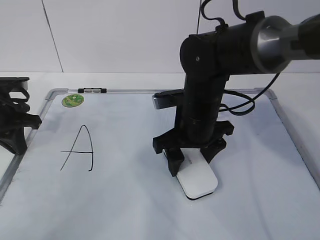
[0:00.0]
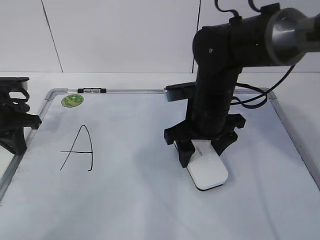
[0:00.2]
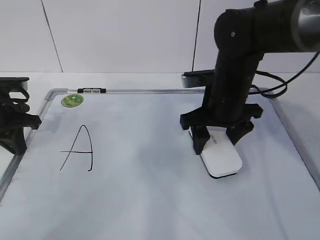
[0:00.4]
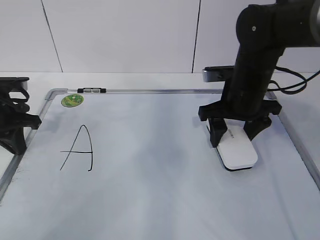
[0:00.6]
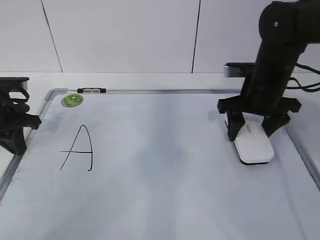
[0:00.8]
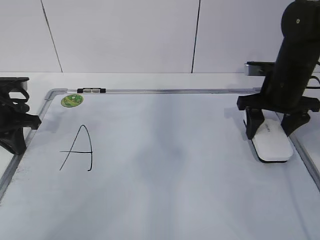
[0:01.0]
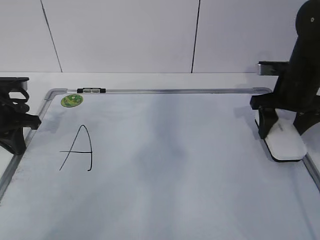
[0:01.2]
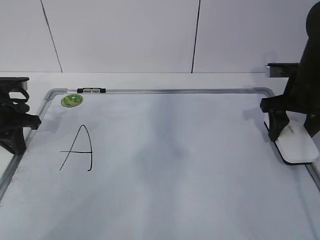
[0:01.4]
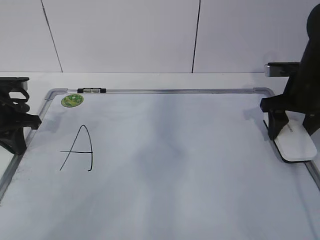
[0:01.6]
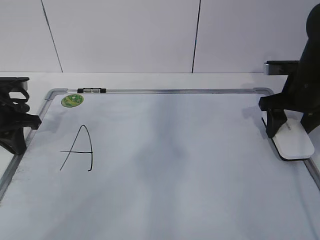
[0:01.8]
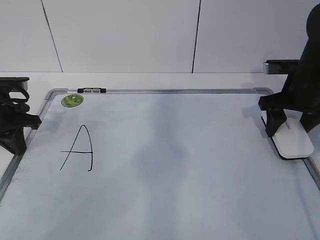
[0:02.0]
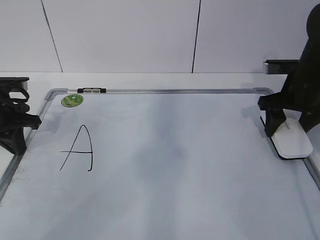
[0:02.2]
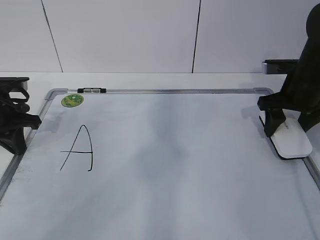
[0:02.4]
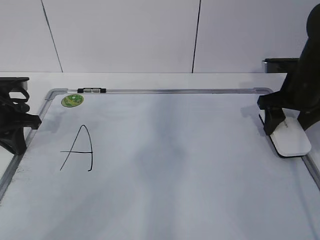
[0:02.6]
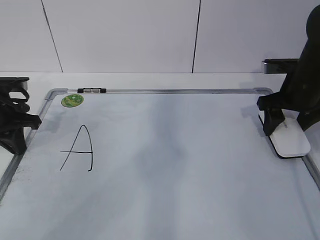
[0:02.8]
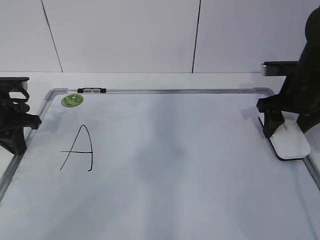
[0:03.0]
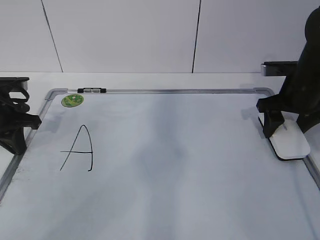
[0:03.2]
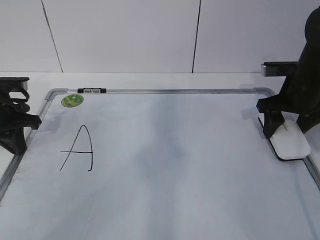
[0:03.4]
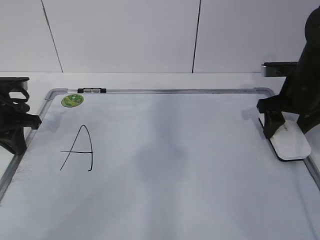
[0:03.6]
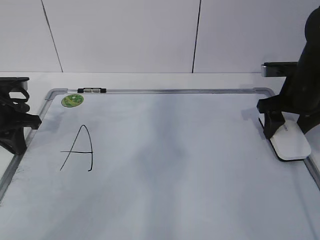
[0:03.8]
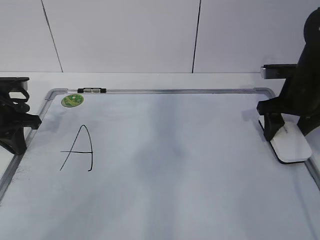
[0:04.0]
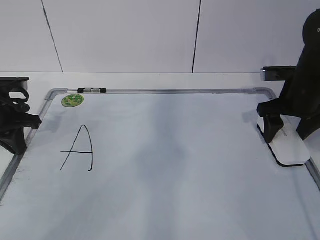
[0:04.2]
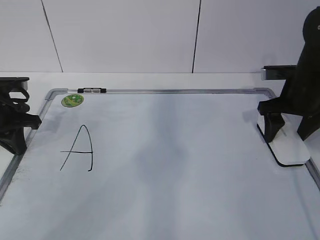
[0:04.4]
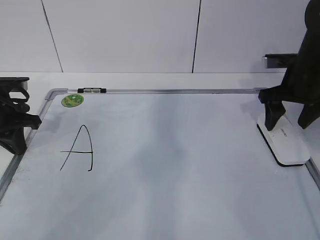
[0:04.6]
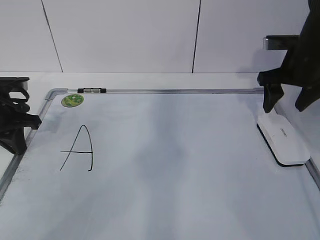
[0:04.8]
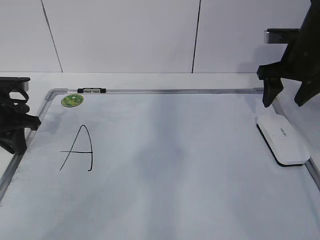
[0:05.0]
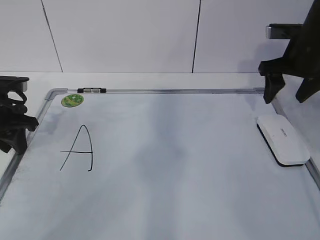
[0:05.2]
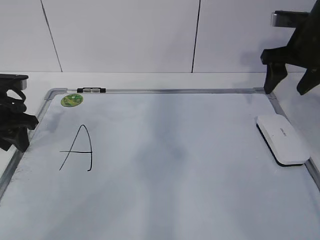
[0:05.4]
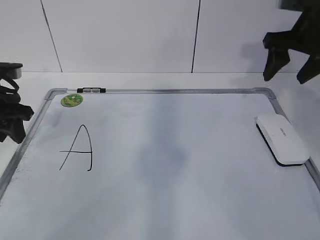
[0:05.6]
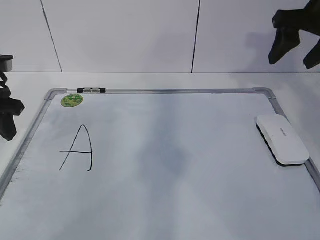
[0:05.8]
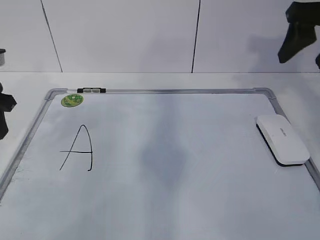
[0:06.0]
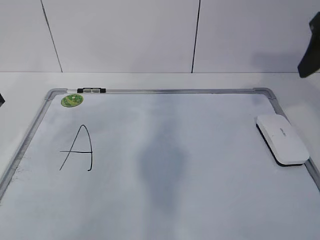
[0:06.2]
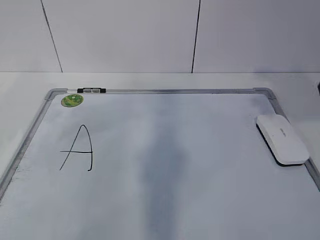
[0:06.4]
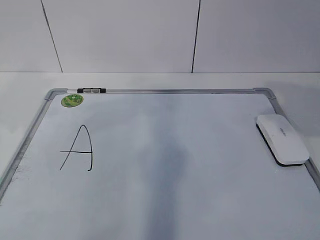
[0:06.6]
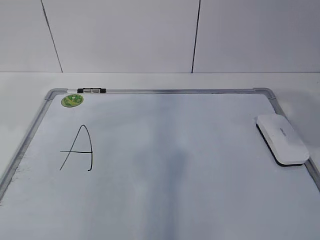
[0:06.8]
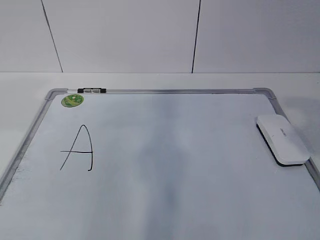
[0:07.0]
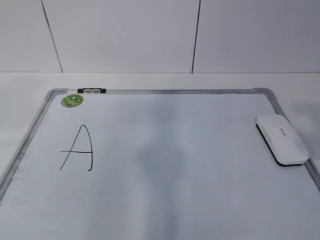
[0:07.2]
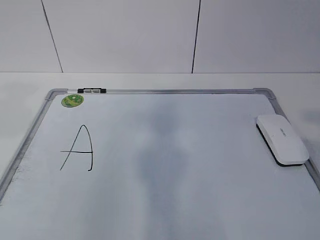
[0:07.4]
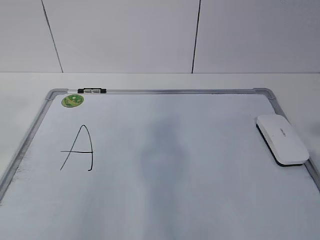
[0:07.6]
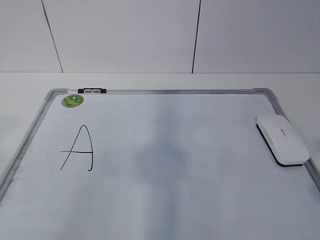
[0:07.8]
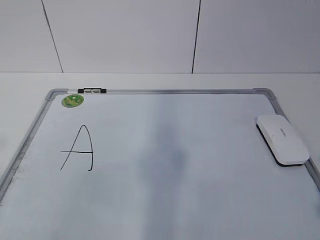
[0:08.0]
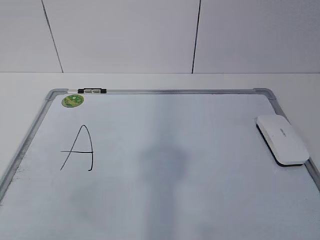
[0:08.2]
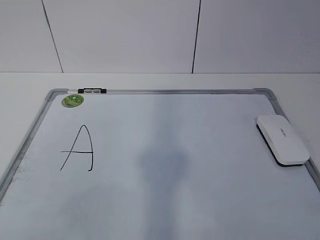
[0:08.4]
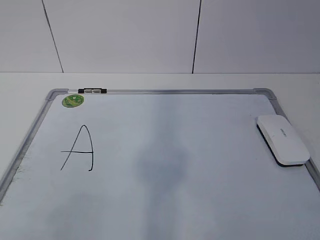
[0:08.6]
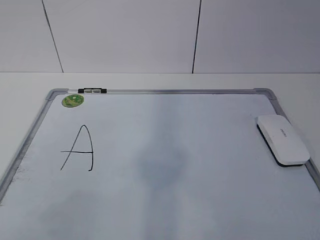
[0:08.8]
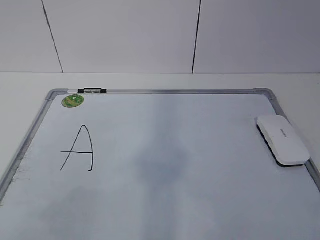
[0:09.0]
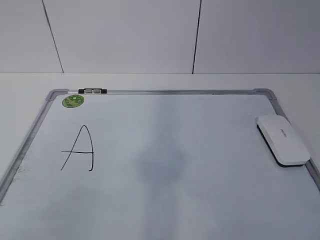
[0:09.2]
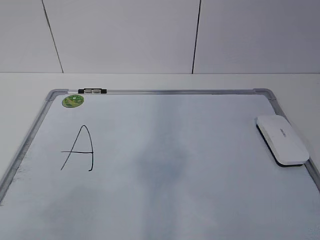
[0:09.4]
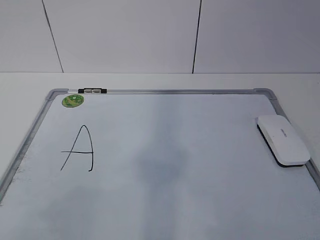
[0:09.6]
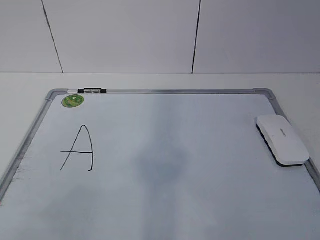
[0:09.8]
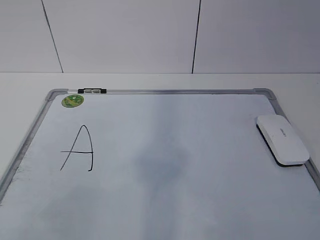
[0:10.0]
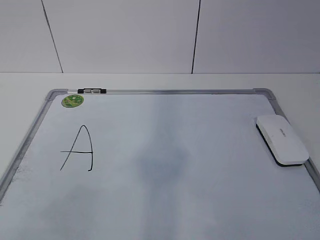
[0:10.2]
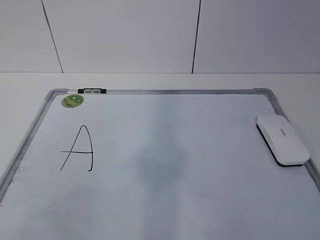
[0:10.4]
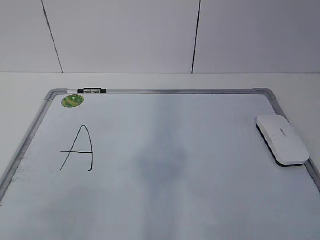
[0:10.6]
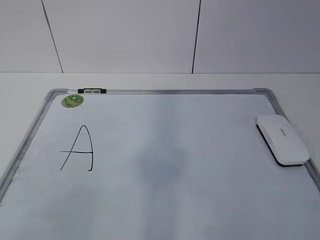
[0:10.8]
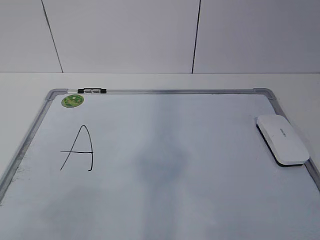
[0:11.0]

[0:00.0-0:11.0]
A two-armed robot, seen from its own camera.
Task of the whole recording: pick up the eraser on the blackboard and erase the letter "a".
0:00.0 to 0:01.6: The right gripper moves to the right, about 20 cm.
0:01.6 to 0:03.2: The grippers move only a little.
0:03.2 to 0:04.8: The right gripper opens.
0:04.8 to 0:06.2: The right gripper is displaced upward and backward by some 15 cm. Meanwhile the left gripper is displaced upward and backward by approximately 10 cm, and opens its fingers.
0:06.2 to 0:07.8: The left gripper goes approximately 25 cm backward and upward. The right gripper shifts approximately 30 cm backward.
0:09.4 to 0:11.0: Both grippers stay about where they are.
